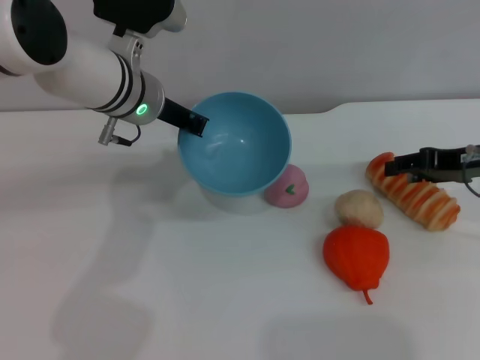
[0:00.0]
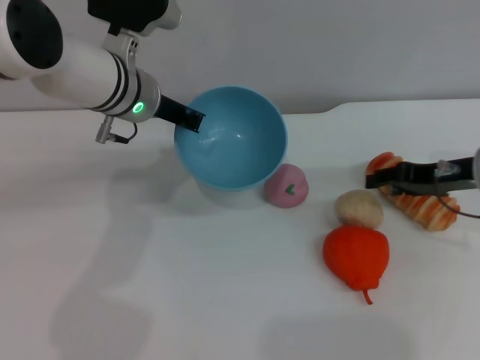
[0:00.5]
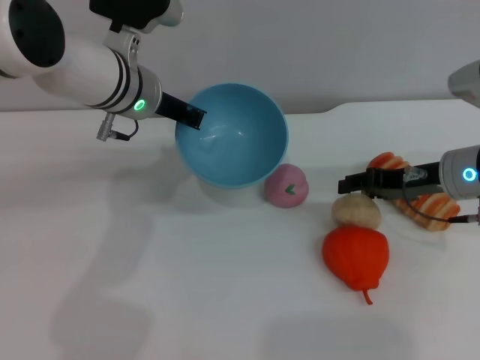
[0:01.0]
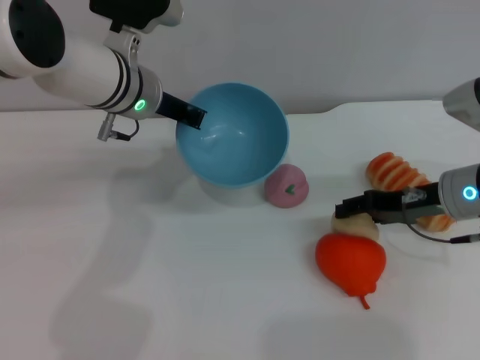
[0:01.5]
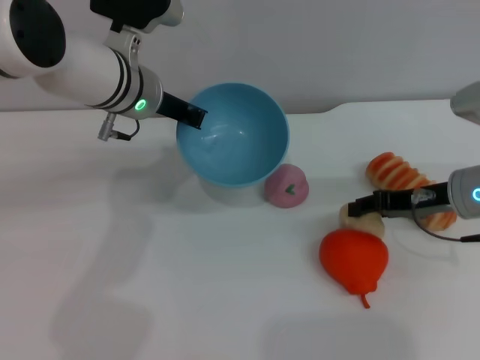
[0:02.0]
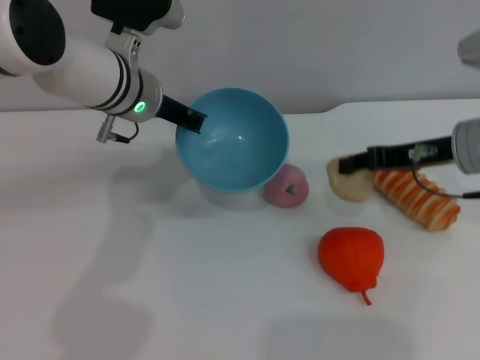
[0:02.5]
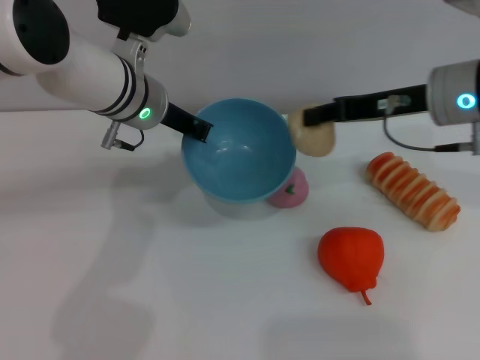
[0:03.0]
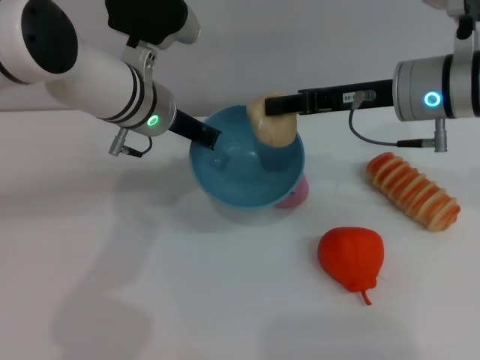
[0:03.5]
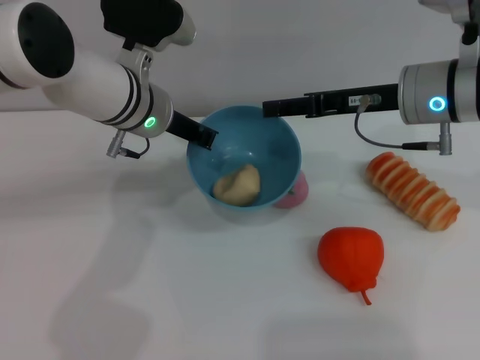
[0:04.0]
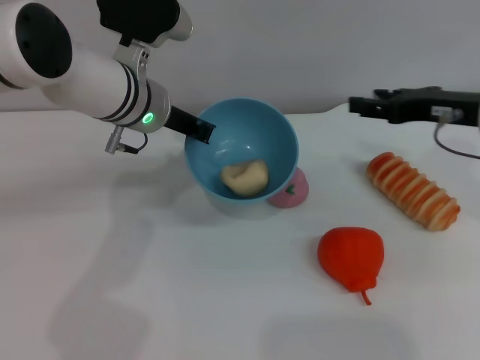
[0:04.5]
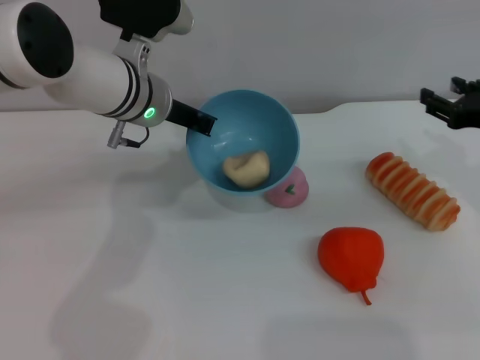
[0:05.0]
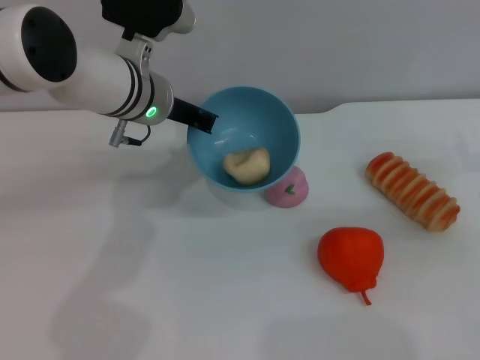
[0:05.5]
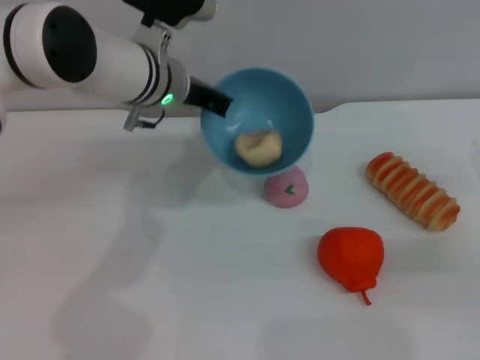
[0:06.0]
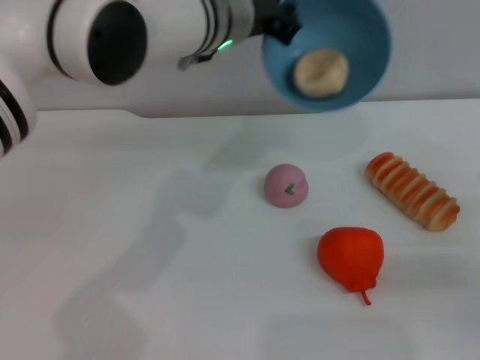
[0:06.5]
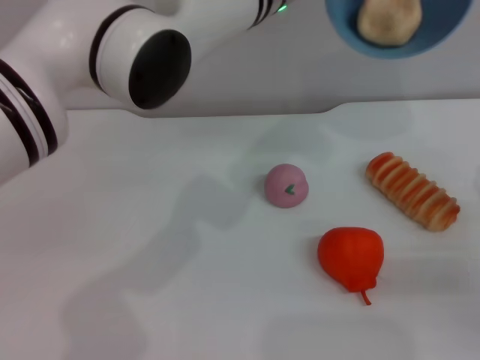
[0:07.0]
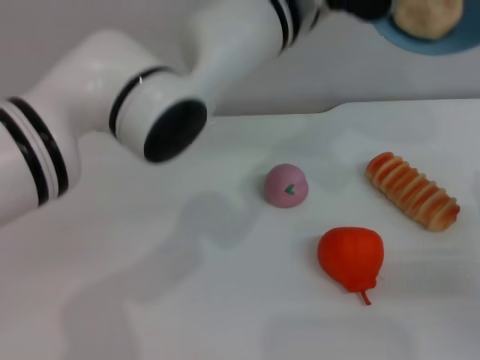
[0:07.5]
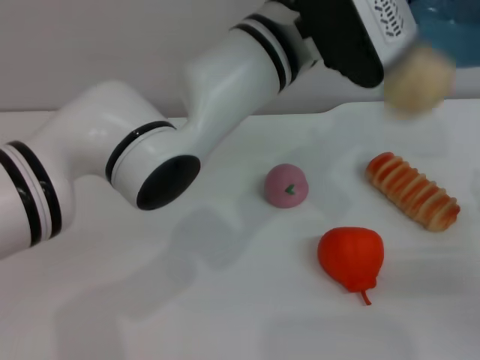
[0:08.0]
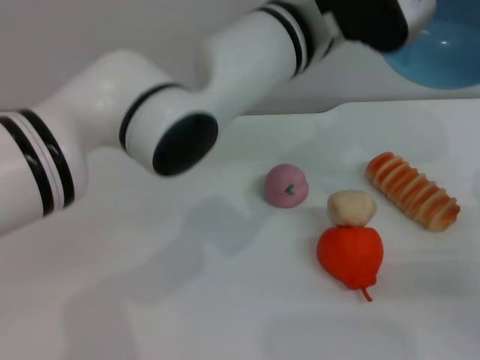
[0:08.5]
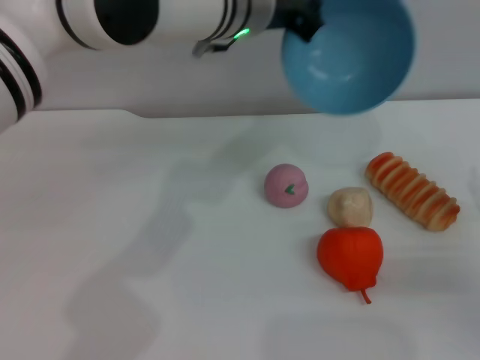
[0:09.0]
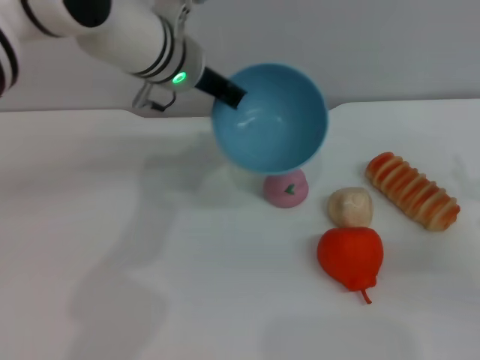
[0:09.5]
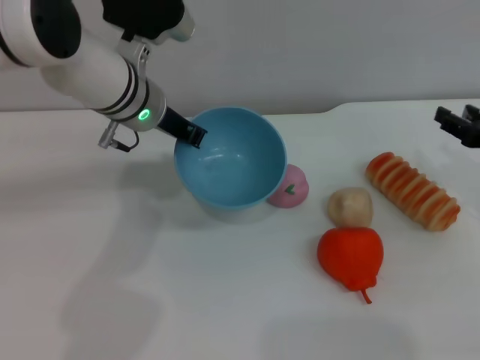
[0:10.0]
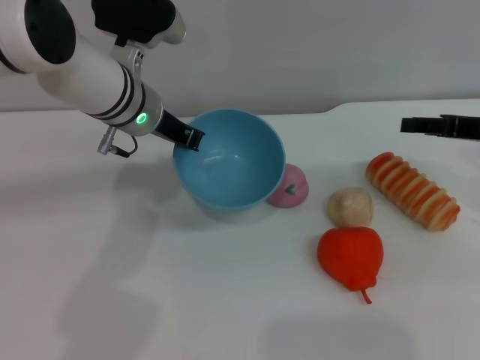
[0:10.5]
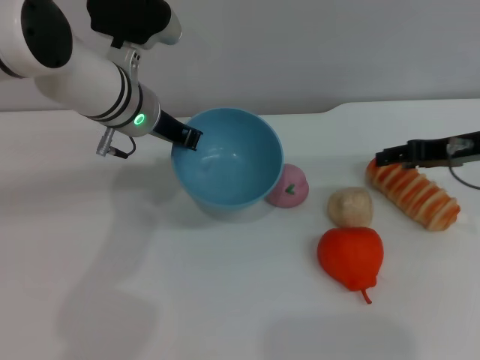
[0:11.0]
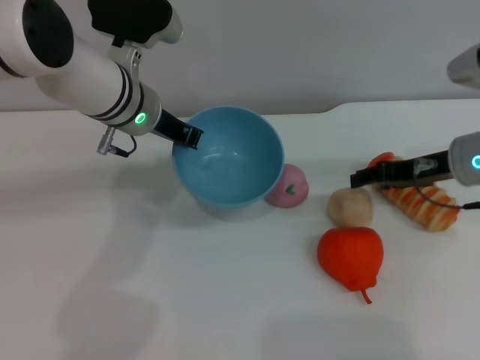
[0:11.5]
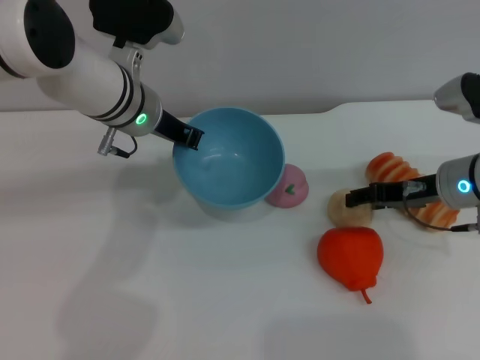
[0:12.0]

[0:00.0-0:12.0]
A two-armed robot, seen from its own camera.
Task of the whole recording: put the egg yolk pastry into the blue bowl and pour it out repeatedly.
Step, 0:00.0 to 0:02.5: Pick up the egg yolk pastry with the right gripper.
Step, 0:03.0 to 0:04.0: Place the egg yolk pastry into the bowl.
Step, 0:04.5 to 0:08.0: Pour the egg yolk pastry out of bowl.
0:00.0 to 0:02.0: The right gripper changes place by some 5 cm.
0:02.0 to 0:04.0: The right gripper heads upward and to the left, covering approximately 10 cm, and closes, then opens again.
0:04.0 to 0:06.0: The right gripper travels to the right, downward and backward by roughly 20 cm.
0:06.0 to 0:08.0: The left gripper moves to the right, backward and upward, about 15 cm.
0:08.0 to 0:10.0: The left gripper moves to the left, downward and forward, about 15 cm; the right gripper is displaced forward and upward by approximately 10 cm.
0:10.0 to 0:12.0: The right gripper goes approximately 10 cm to the left.

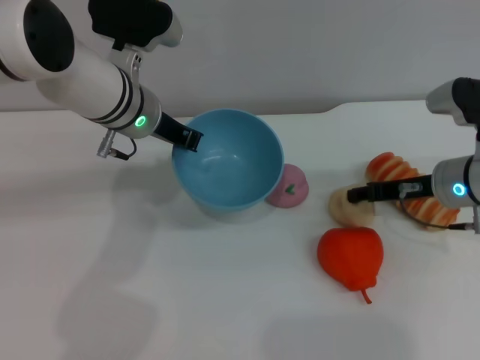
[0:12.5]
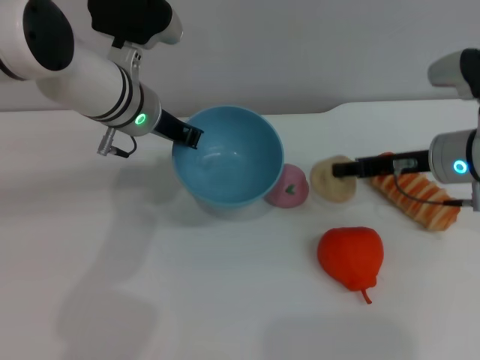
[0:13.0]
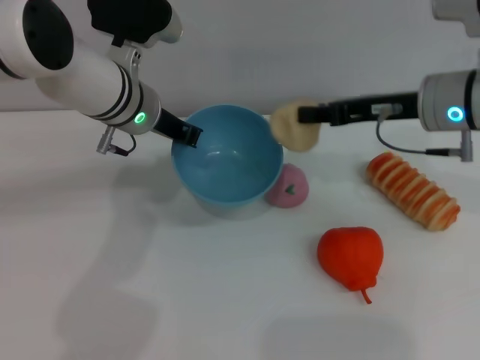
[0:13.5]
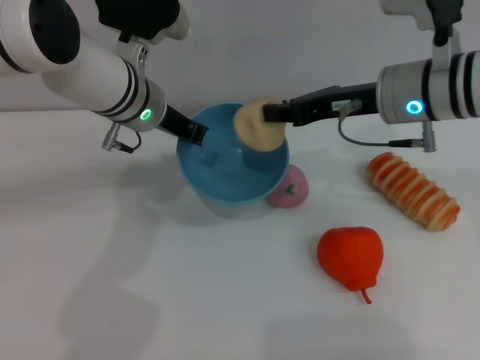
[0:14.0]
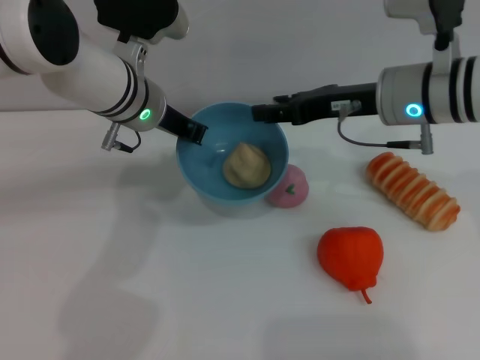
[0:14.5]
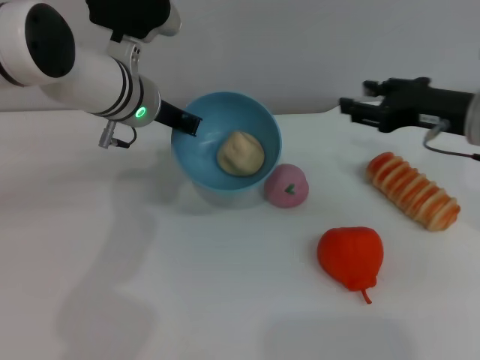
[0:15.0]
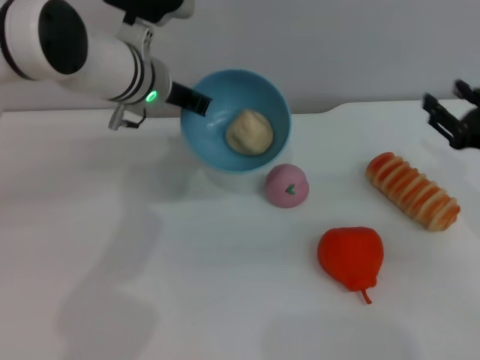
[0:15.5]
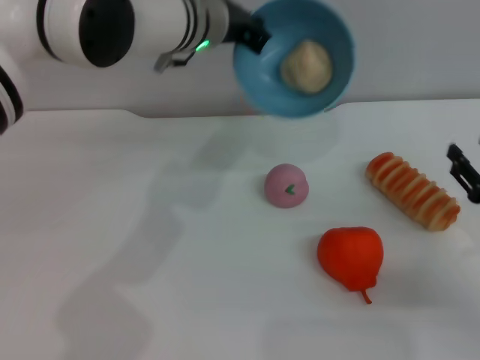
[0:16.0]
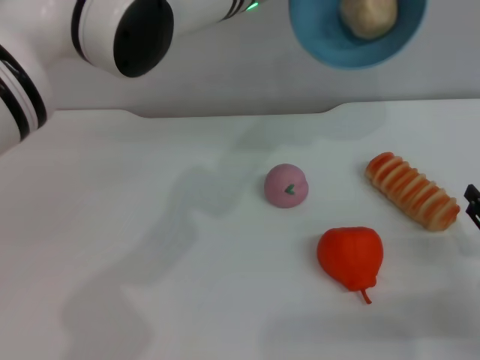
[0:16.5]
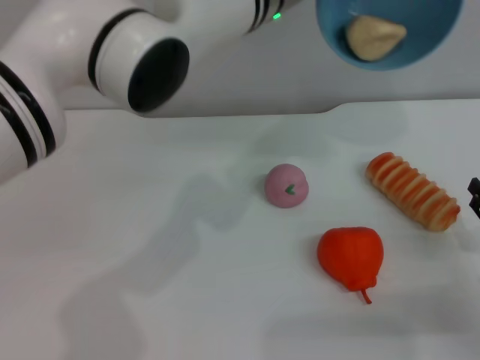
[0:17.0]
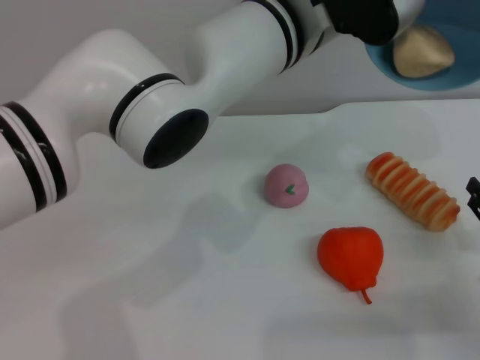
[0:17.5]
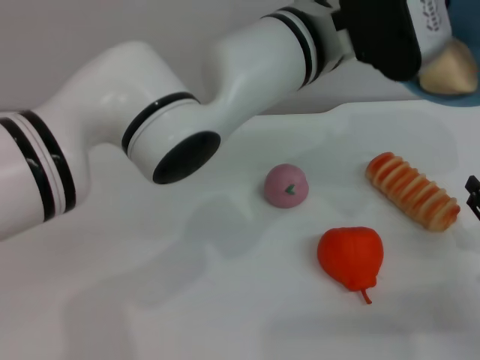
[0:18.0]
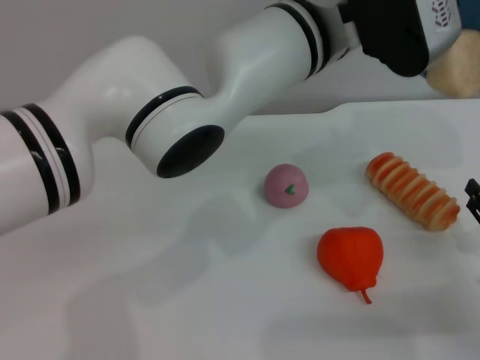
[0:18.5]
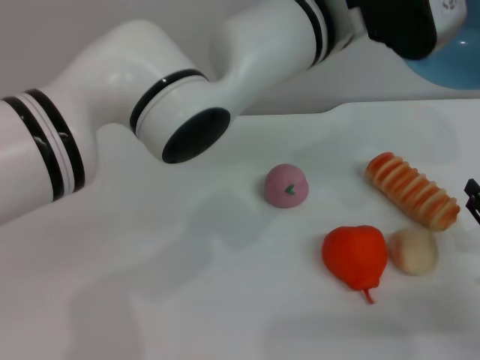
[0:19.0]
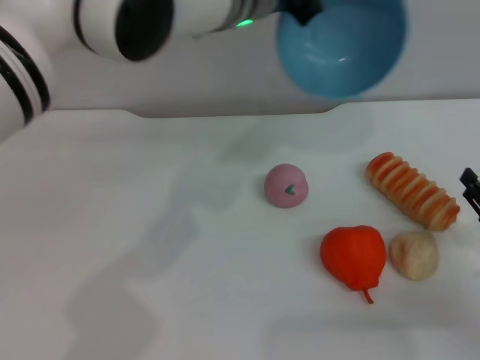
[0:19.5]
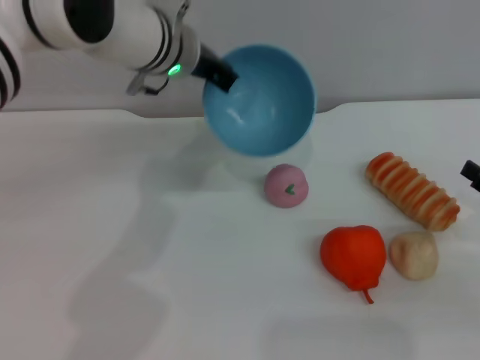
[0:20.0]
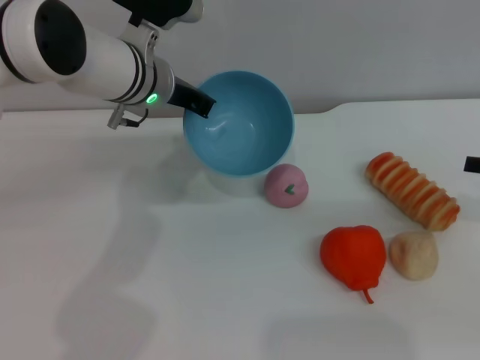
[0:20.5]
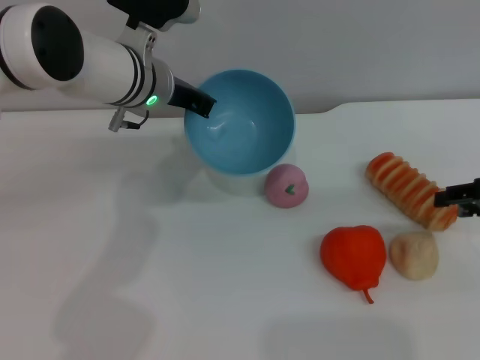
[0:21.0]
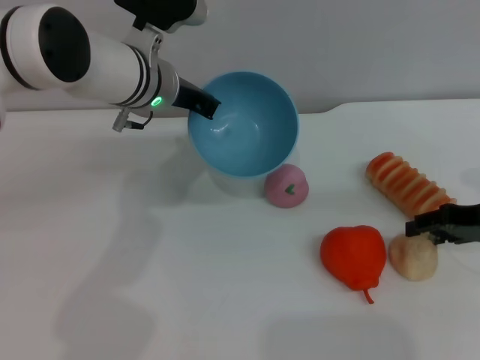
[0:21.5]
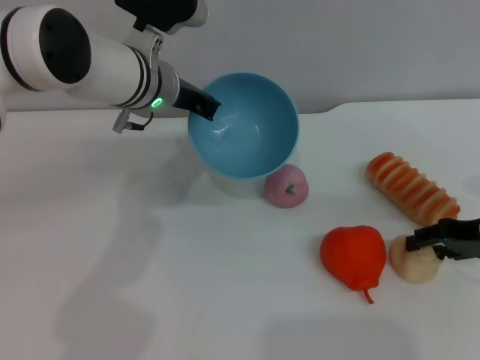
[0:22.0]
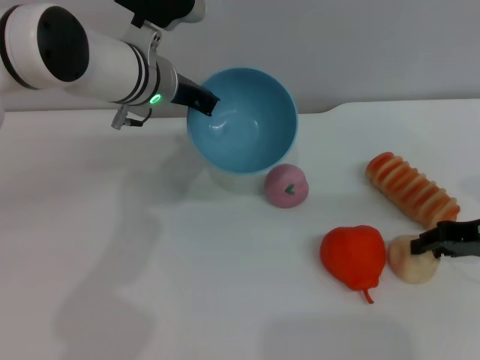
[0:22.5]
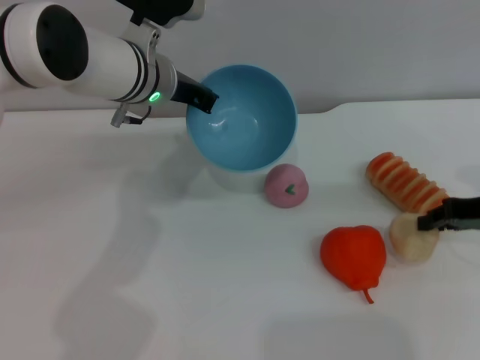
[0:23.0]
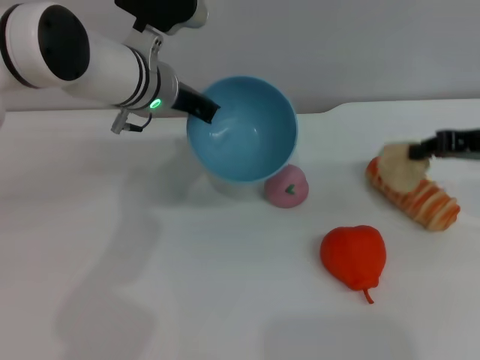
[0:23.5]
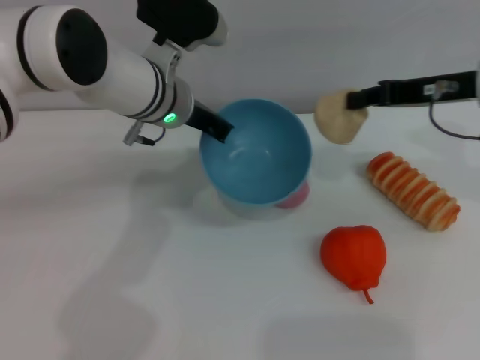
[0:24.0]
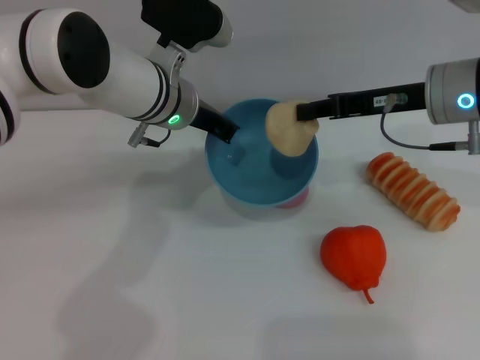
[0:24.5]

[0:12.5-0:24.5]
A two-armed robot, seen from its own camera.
Task of the whole recording: put the egg yolk pastry into the blue bowl and pour it out repeatedly.
Step, 0:13.5 to 0:14.5: Place the egg yolk pastry into the bowl.
Step, 0:15.0 to 0:19.0: Pour the egg yolk pastry out of bowl.
Step, 0:19.5 to 0:23.5: Pick up the egg yolk pastry with the right gripper.
0:12.5 to 0:14.5: The right gripper is displaced upward and to the left by approximately 10 cm, and closes and opens again.
0:14.5 to 0:16.5: The left gripper shifts roughly 15 cm to the right and upward. Meanwhile the right gripper moves backward, to the right and downward, approximately 30 cm.
0:16.5 to 0:18.5: The left gripper is displaced backward and to the right by roughly 10 cm.
0:18.5 to 0:20.5: The right gripper moves upward and forward, roughly 15 cm; the left gripper goes about 20 cm to the left, downward and forward.
0:20.5 to 0:22.5: The right gripper heads downward, covering some 5 cm.
0:22.5 to 0:24.5: The right gripper moves to the left, upward and forward, approximately 15 cm, and closes its fingers.

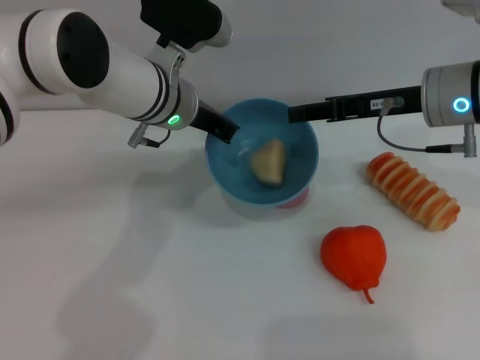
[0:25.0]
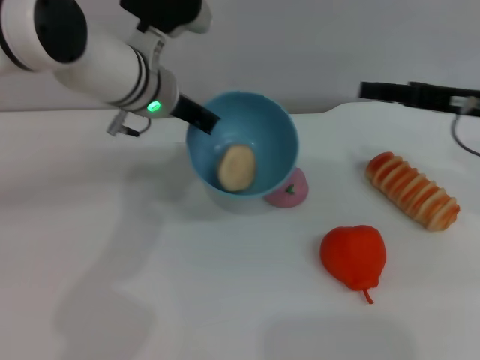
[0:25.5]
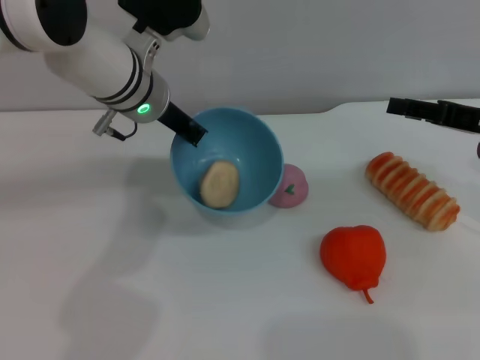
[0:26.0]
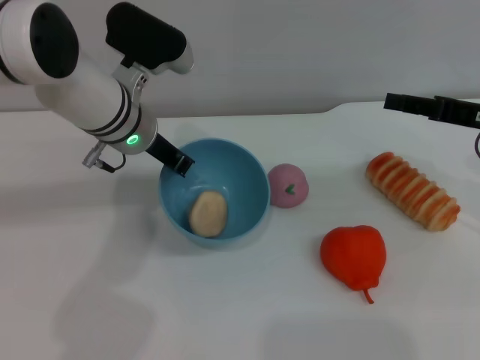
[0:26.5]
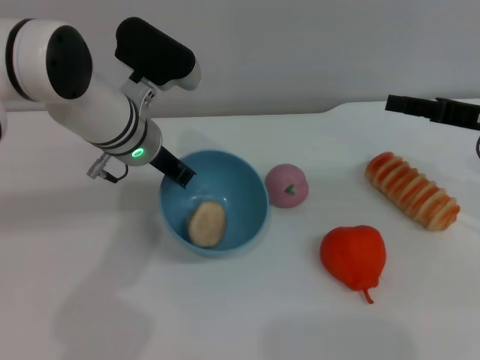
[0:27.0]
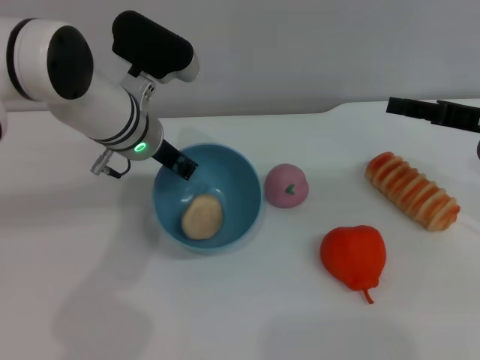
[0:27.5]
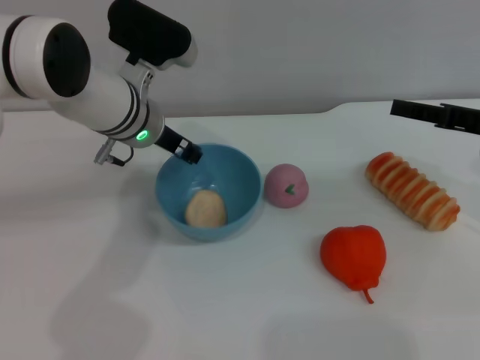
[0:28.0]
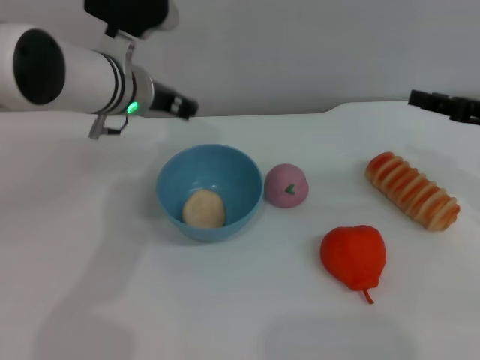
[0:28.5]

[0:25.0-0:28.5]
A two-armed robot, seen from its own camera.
Task of the whole recording: put the egg yolk pastry into the blue bowl and pour it out repeatedly.
Step, 0:26.0 to 0:28.0: Place the bowl on the table.
0:25.0 to 0:27.0: The right gripper shifts roughly 10 cm to the right, and opens up.
0:27.0 to 0:28.5: The left gripper opens.
